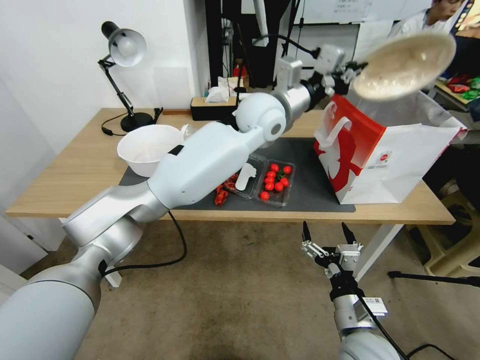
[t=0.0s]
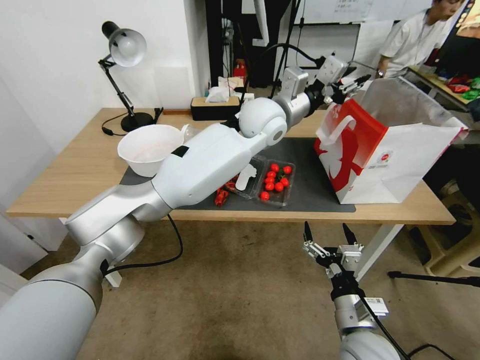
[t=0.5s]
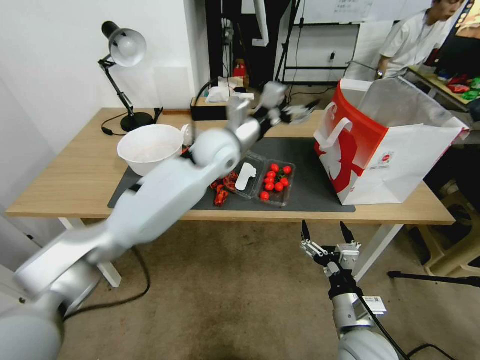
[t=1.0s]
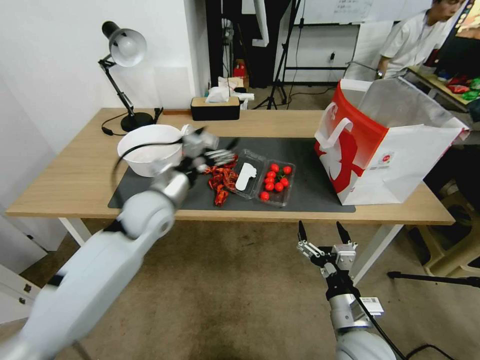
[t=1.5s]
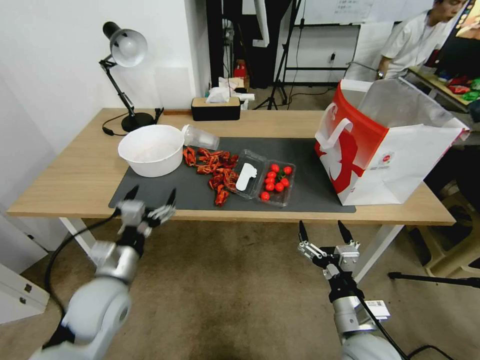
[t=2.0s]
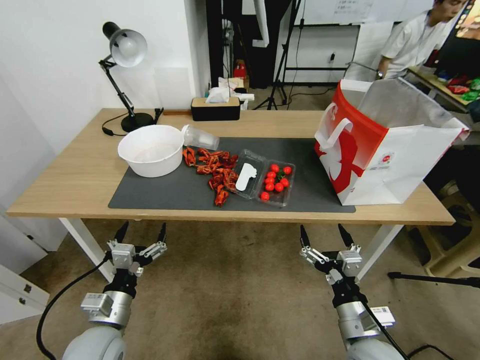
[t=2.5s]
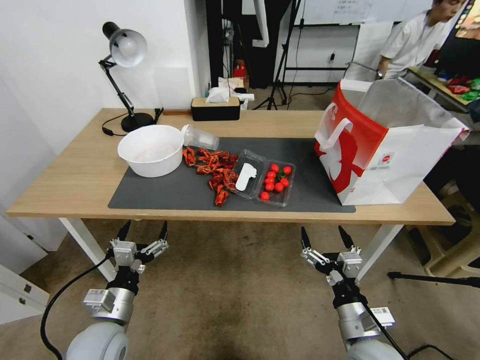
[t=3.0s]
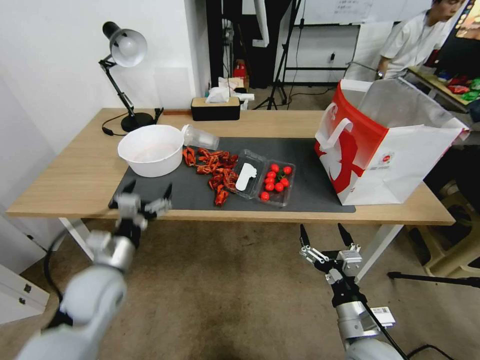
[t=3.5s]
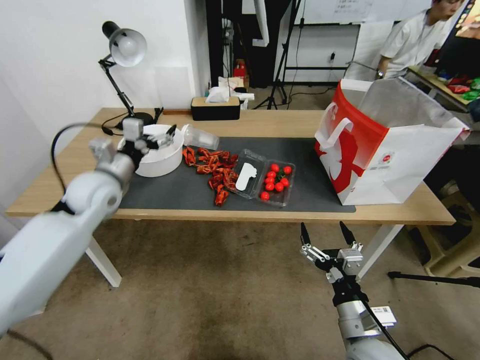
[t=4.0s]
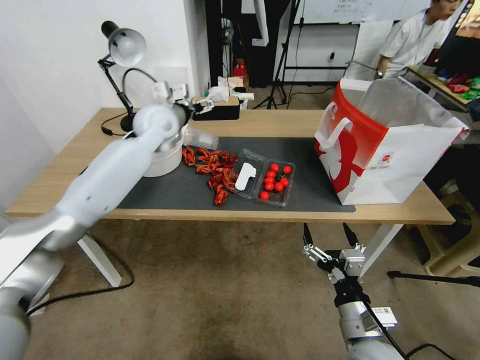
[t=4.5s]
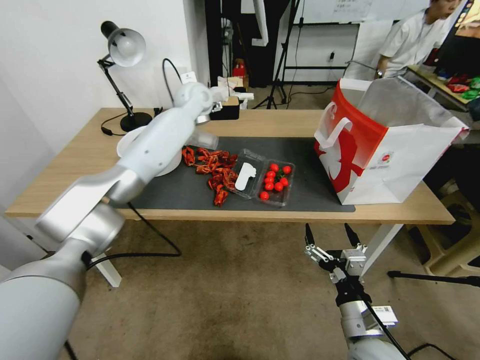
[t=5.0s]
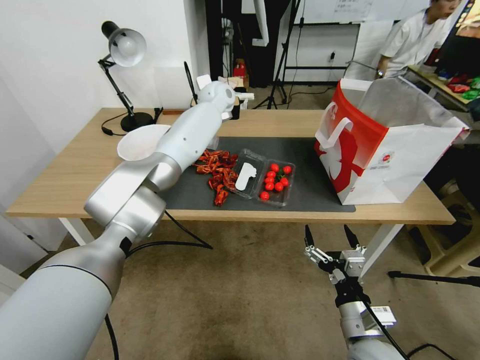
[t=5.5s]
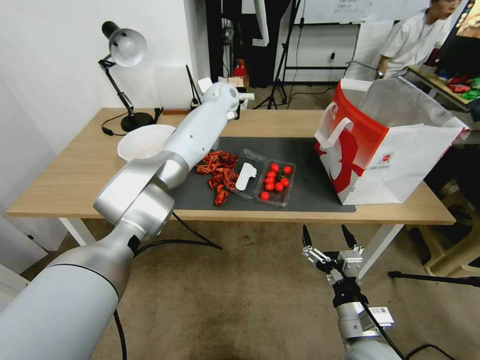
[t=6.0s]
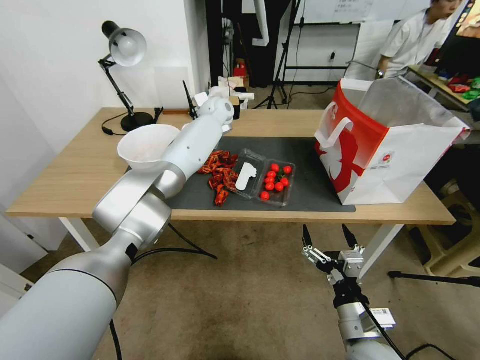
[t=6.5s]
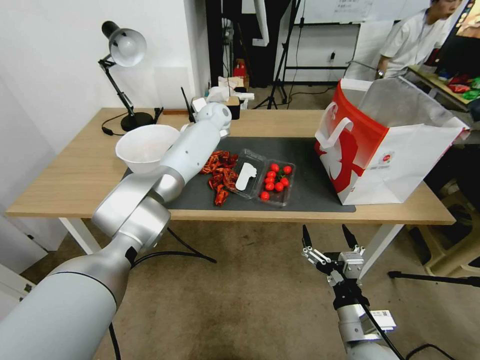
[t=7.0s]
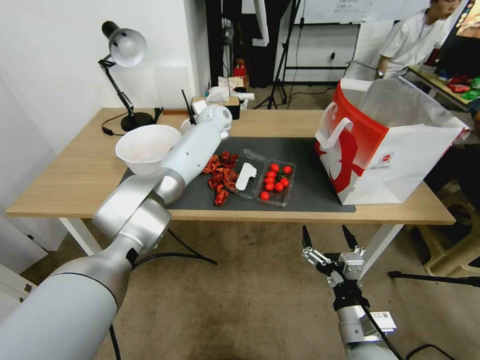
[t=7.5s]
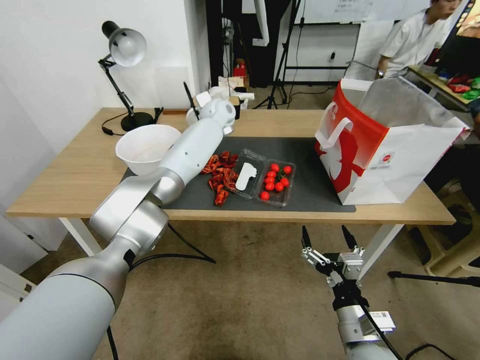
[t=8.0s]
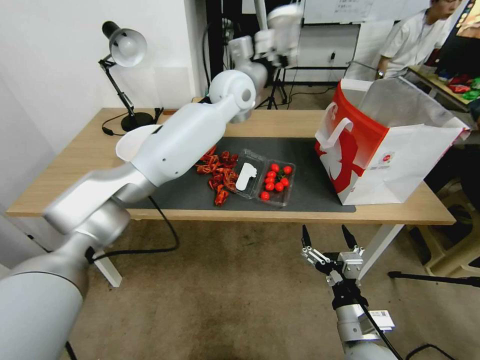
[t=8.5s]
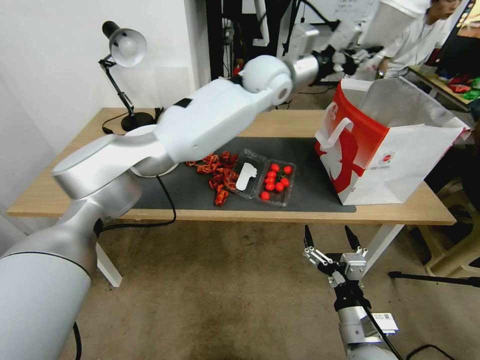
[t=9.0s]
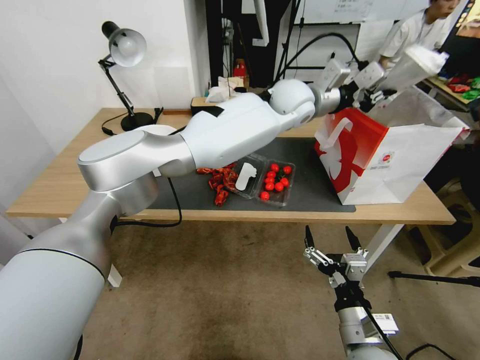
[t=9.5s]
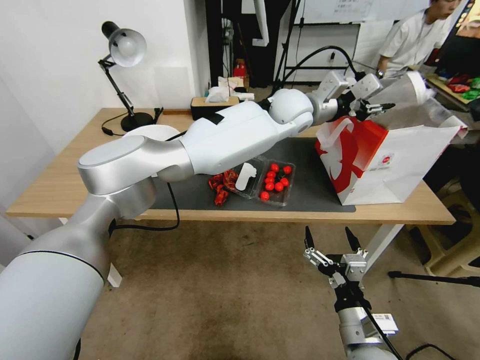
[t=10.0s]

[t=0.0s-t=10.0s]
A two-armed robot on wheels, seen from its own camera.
t=0.0s to t=2.0s: The left gripper is displaced to the left, backward and downward by about 50 cm, and opens its fingers.
t=2.0s to t=4.0s: The left gripper travels forward and upward by roughly 25 cm.
t=4.0s to t=6.0s: The left gripper moves forward and to the right, some 35 cm.
t=6.0s to t=8.0s: The left gripper closes its fingers.
t=8.0s to t=10.0s: The left gripper moves to the right and backward, roughly 20 cm.

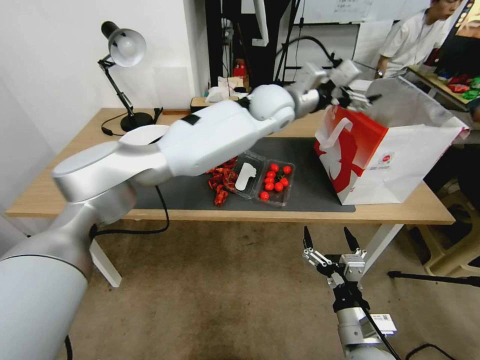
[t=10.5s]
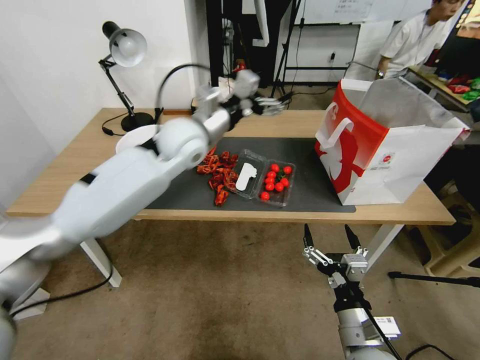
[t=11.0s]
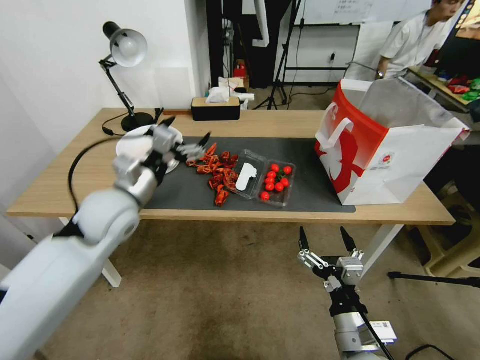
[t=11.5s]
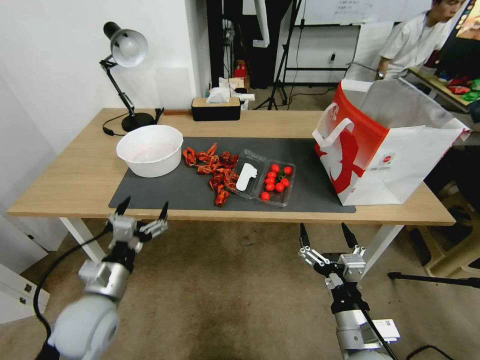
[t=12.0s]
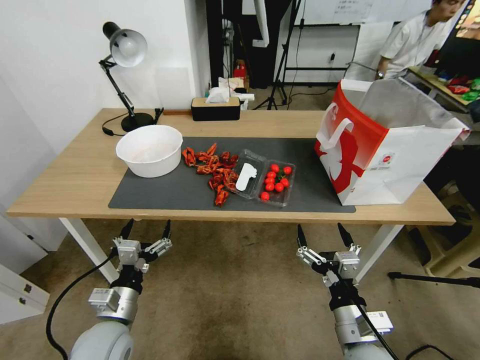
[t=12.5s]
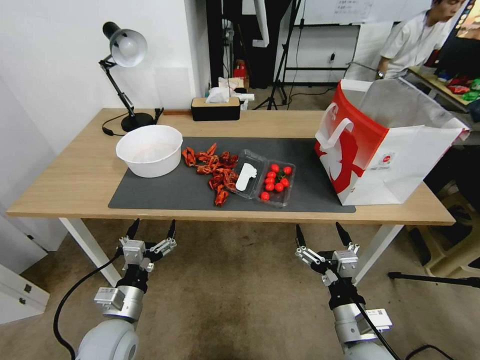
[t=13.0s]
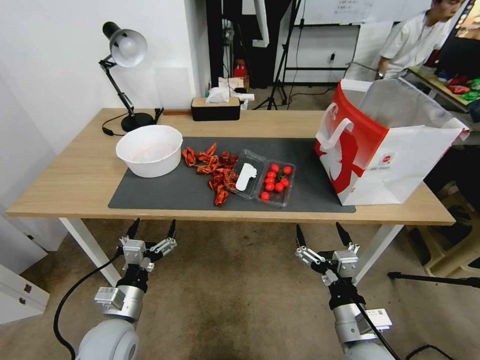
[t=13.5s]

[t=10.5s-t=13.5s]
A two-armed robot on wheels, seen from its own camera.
t=10.5s to t=12.0s: The left gripper shifts some 50 cm to the left, backward and downward.
t=12.0s to t=13.5s: The left gripper shifts some 10 cm downward.
